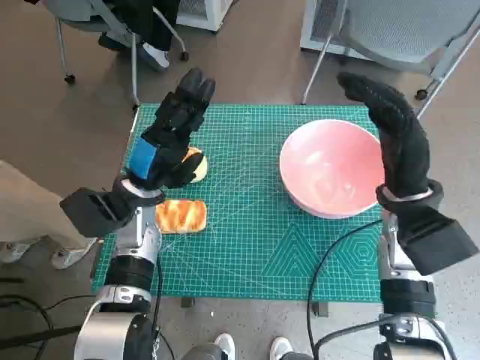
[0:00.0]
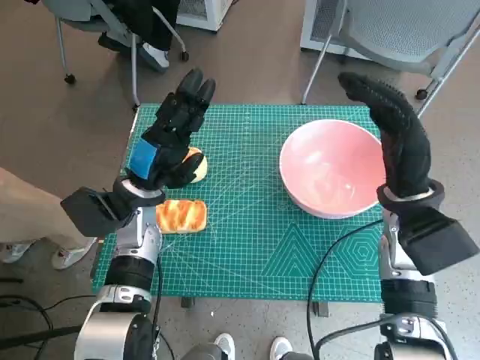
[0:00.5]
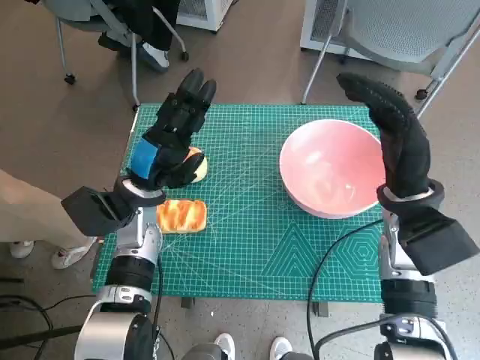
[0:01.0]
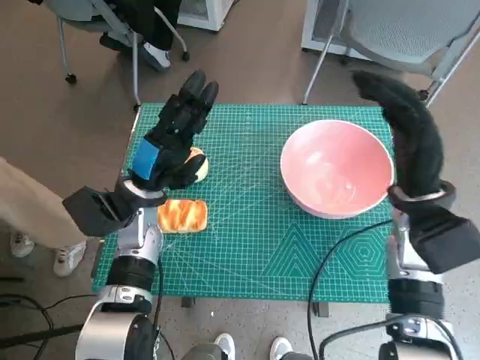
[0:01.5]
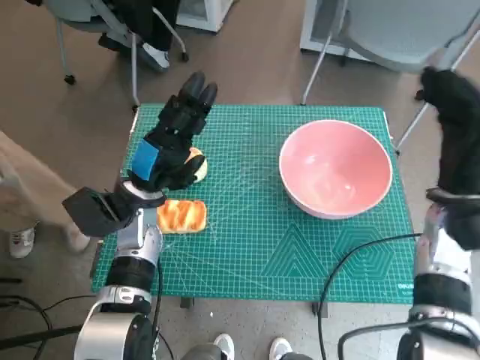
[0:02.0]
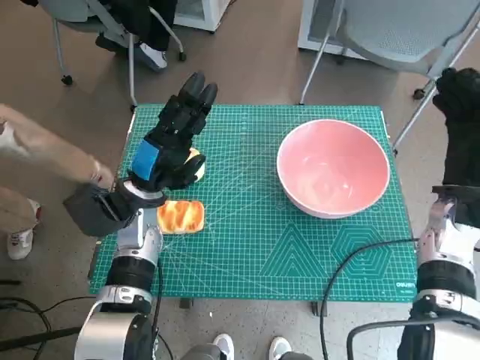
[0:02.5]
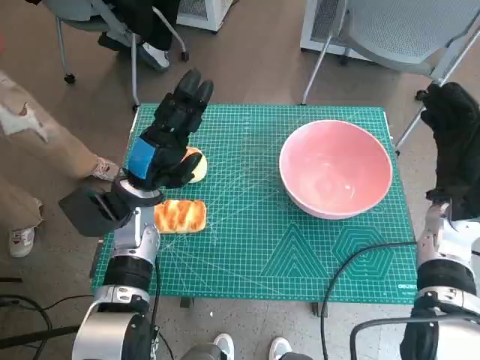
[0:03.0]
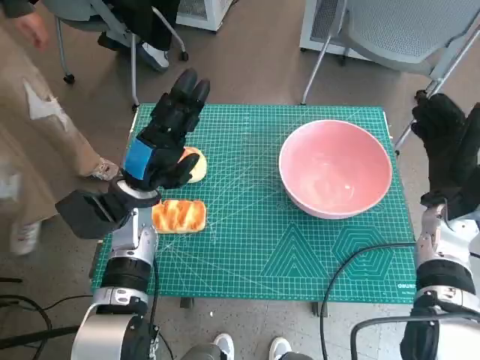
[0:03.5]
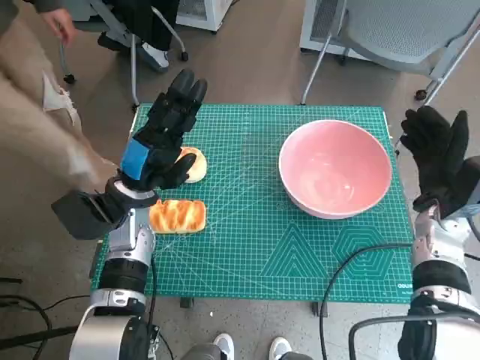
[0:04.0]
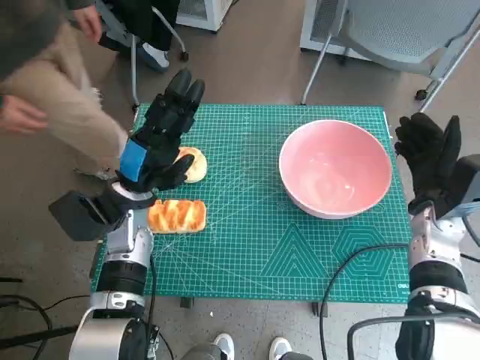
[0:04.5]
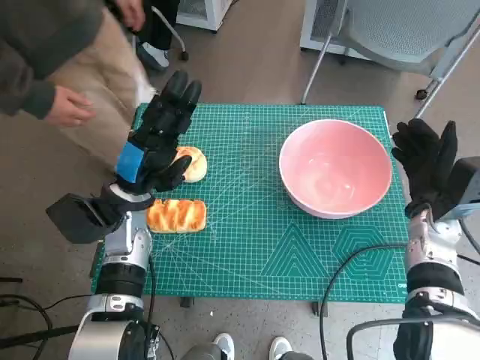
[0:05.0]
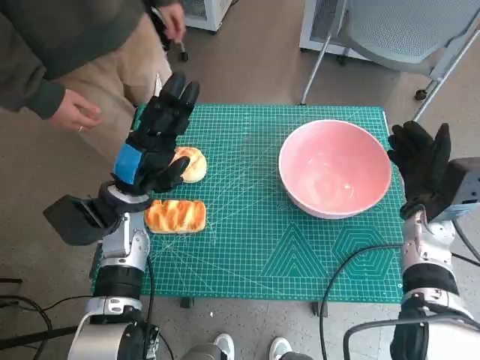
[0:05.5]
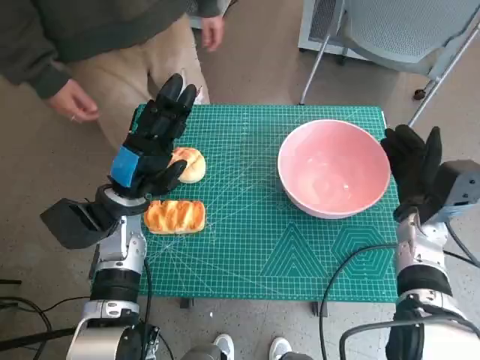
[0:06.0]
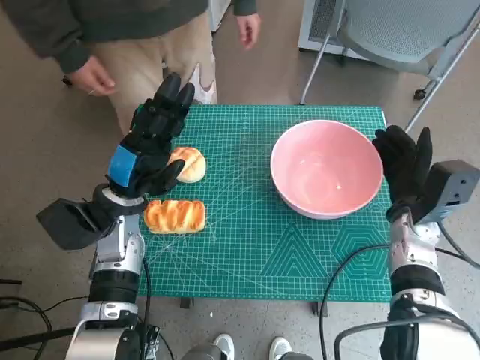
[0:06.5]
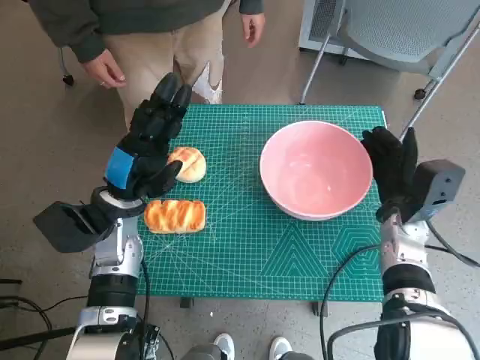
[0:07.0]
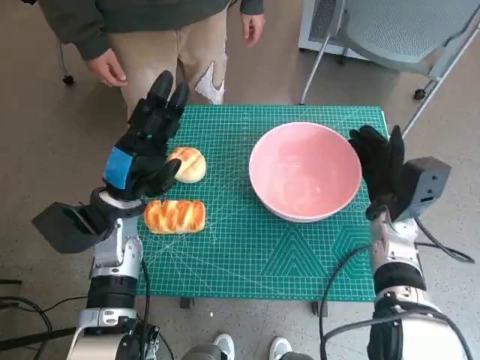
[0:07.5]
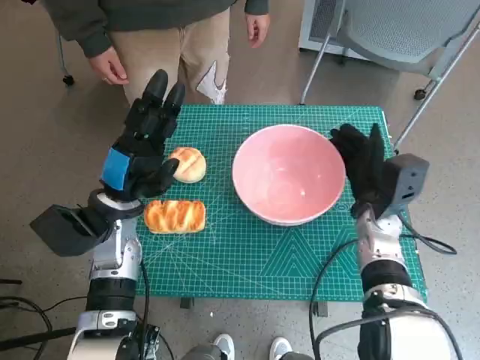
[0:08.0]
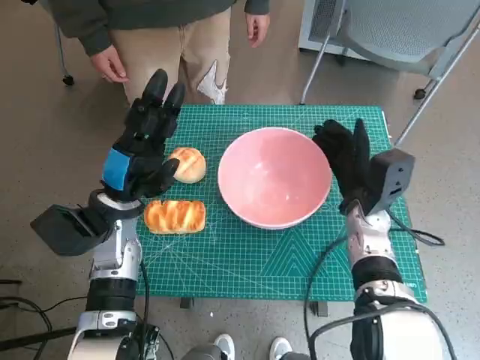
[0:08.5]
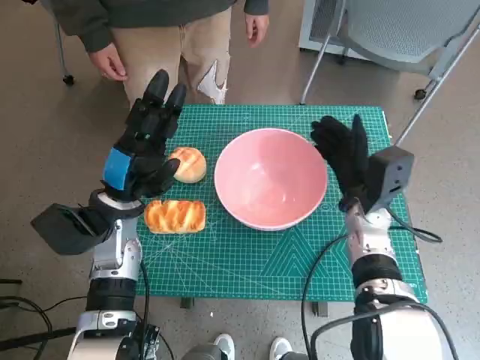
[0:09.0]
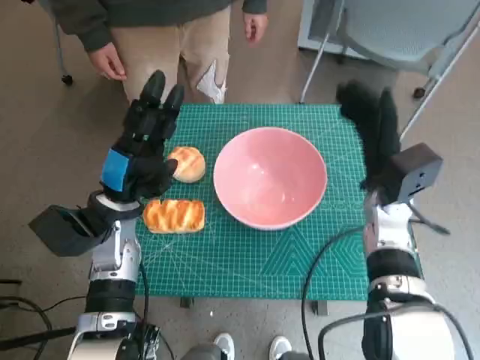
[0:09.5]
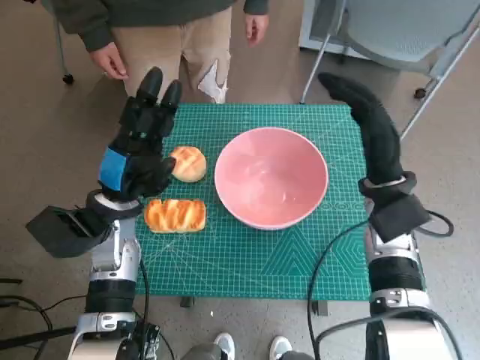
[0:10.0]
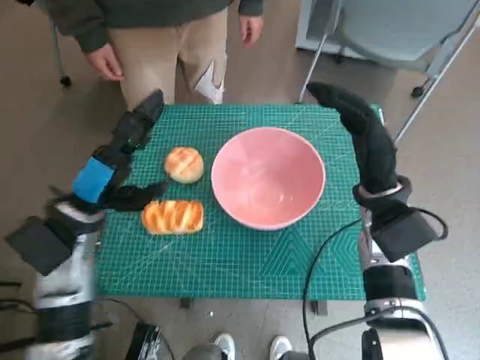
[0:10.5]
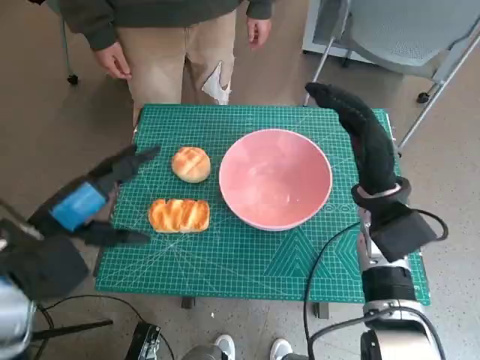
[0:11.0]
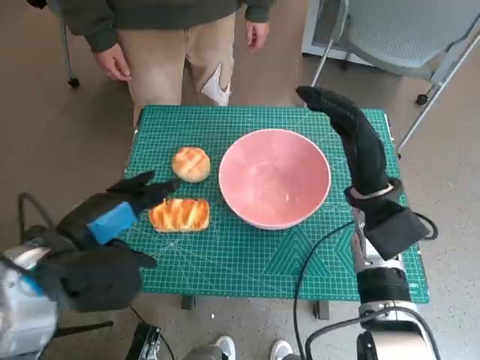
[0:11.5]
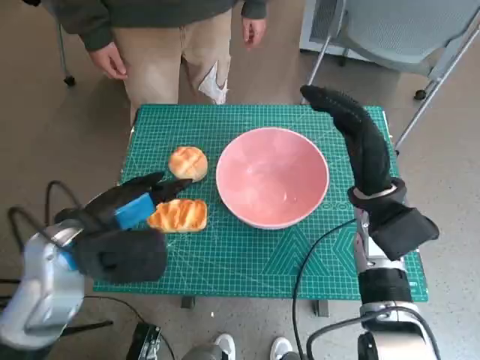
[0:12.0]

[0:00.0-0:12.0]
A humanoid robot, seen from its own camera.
Step, 0:00.0 to 0:09.0: Move the pink bowl to the center of table with right hand.
0:02.0 to 0:04.0: The right hand moves about 5 cm.
0:06.0 to 0:08.0: The right hand moves to the left, about 5 cm.
0:08.0 to 0:10.0: The right hand shifts approximately 5 cm upward.
0:10.0 to 0:12.0: The left hand goes some 10 cm backward and upward.

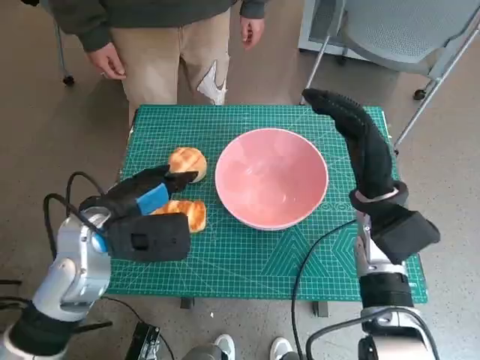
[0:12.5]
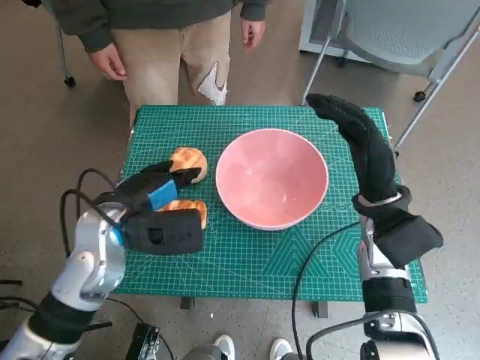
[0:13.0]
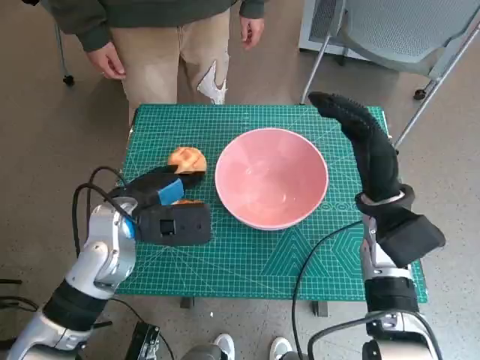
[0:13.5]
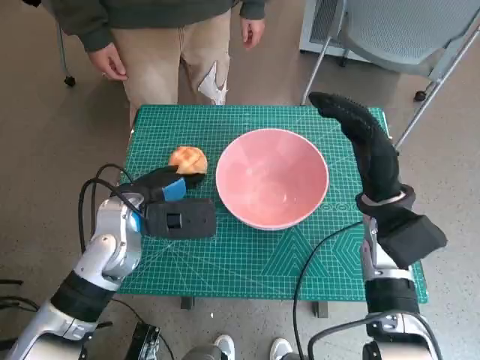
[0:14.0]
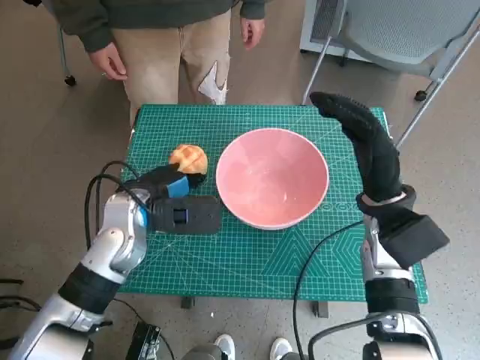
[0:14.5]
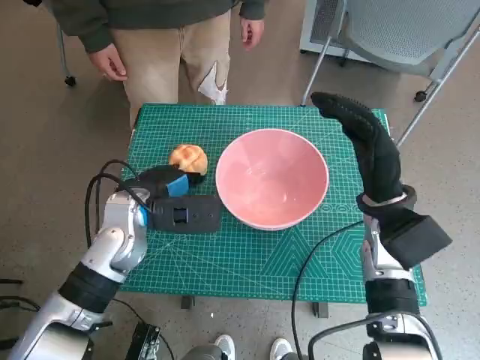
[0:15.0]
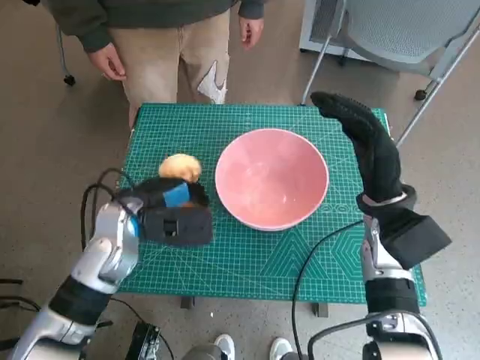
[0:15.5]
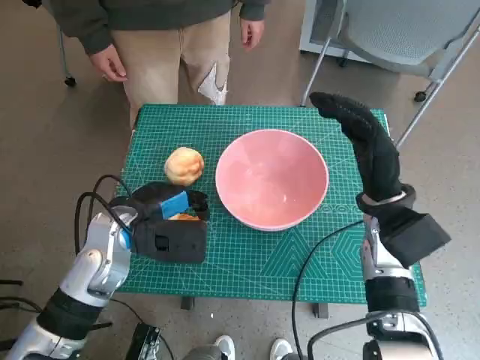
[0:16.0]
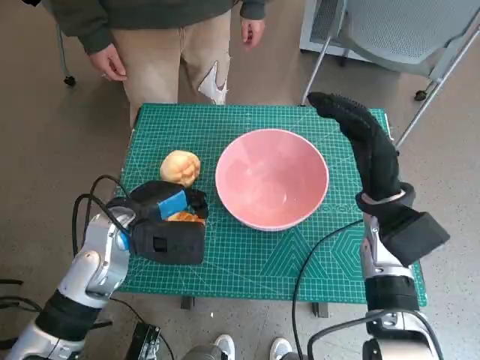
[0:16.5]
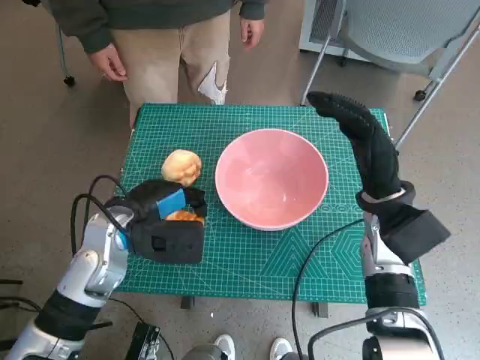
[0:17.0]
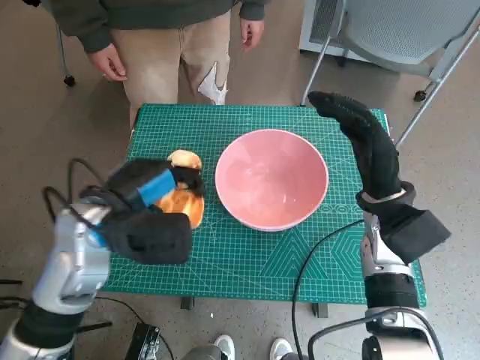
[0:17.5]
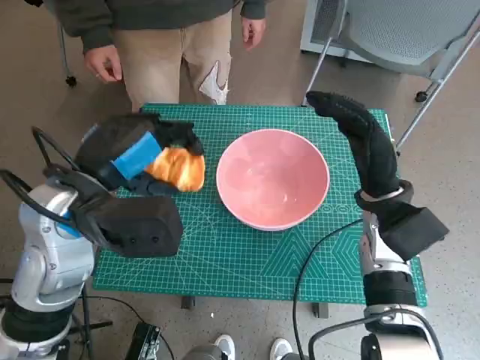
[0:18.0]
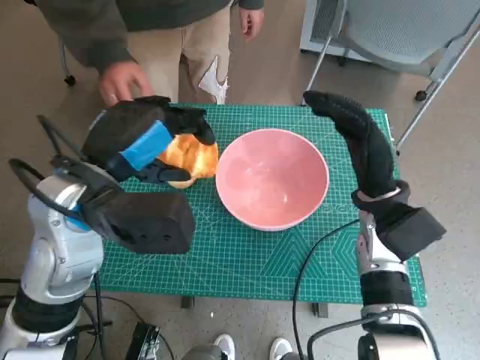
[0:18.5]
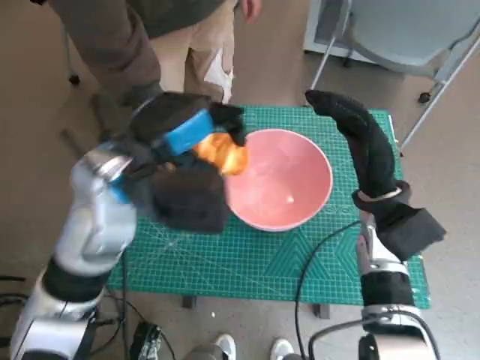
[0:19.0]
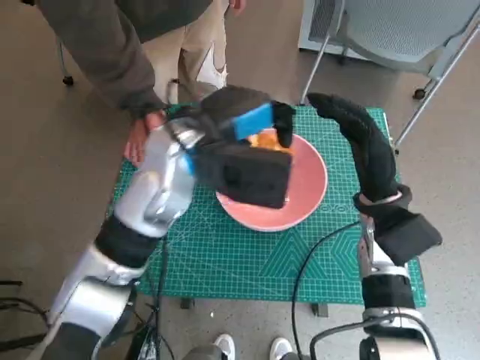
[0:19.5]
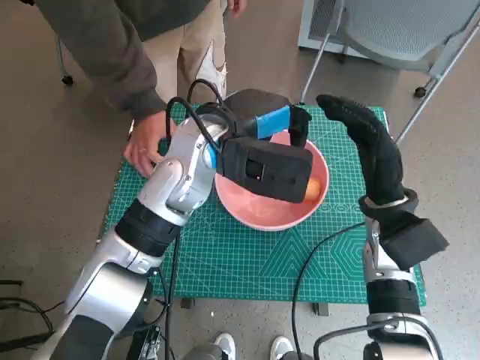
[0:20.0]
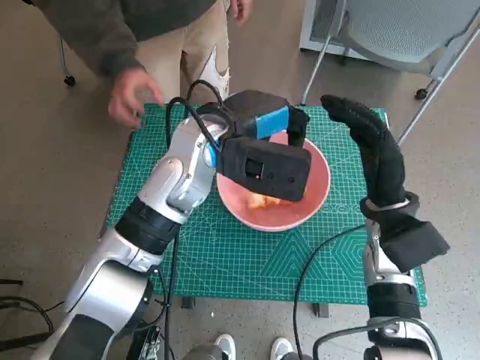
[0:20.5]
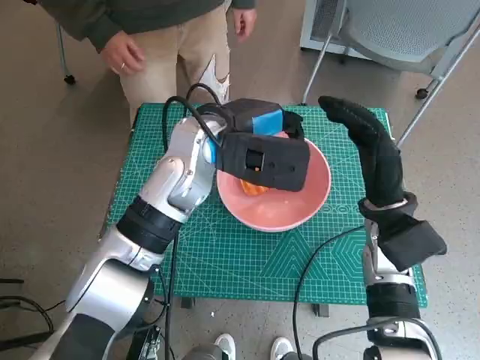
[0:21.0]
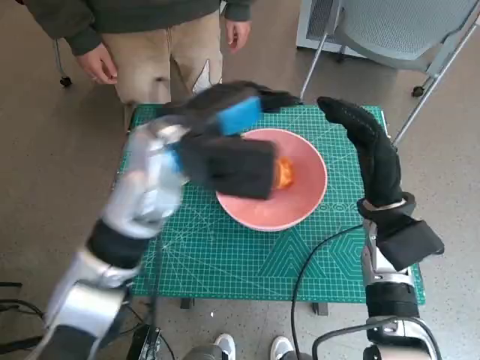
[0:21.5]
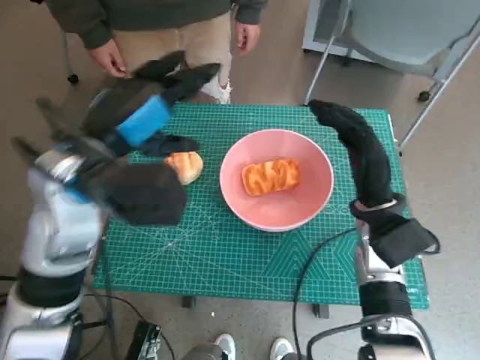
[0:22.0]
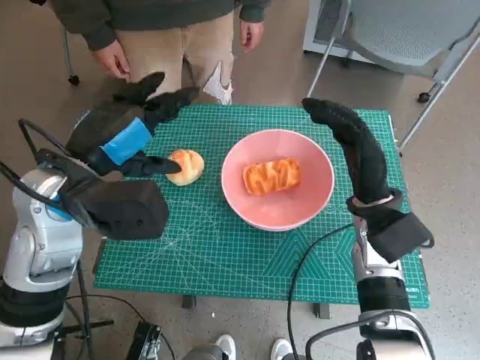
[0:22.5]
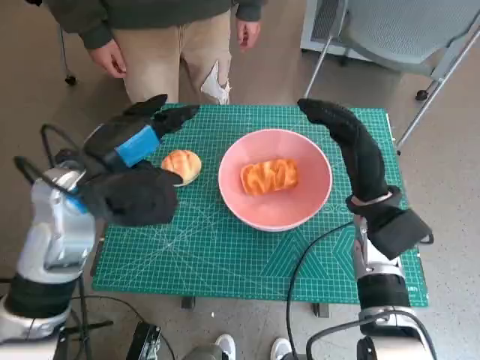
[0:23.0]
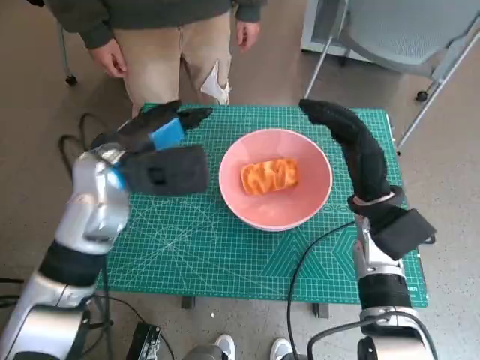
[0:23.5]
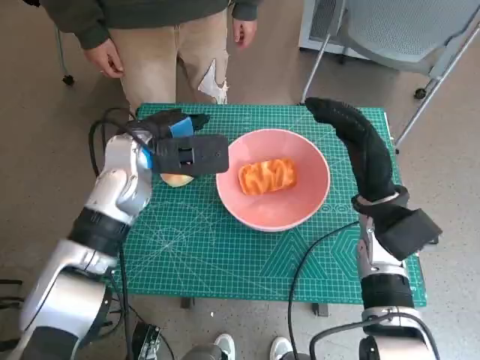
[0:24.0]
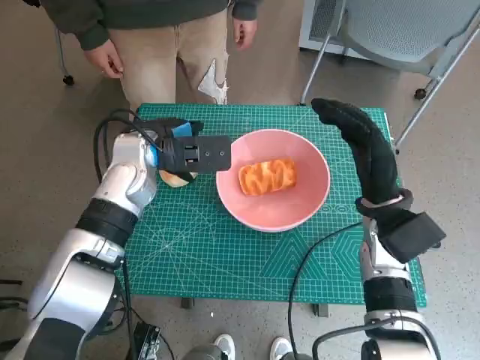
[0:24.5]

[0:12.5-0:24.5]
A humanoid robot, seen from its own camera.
Step, 0:12.5 to 0:15.0: Grasp the long bread with left hand.
Step, 0:15.5 to 0:20.0: Place the long bread in pink bowl with left hand.
0:12.5 to 0:14.5: The left hand shifts by approximately 5 cm.
0:14.5 to 0:16.5: There are only small adjustments of the hands.
0:16.5 to 0:18.5: The left hand travels upward by about 10 cm.
0:18.5 to 0:20.5: The left hand shifts some 15 cm to the right and forward.
0:20.5 to 0:22.5: The left hand heads to the left and backward, covering approximately 15 cm.
0:22.5 to 0:24.5: The left hand is displaced forward and downward by some 10 cm.

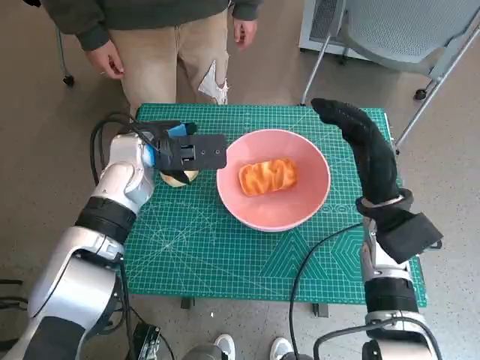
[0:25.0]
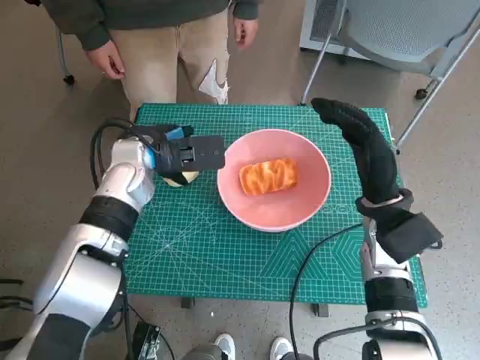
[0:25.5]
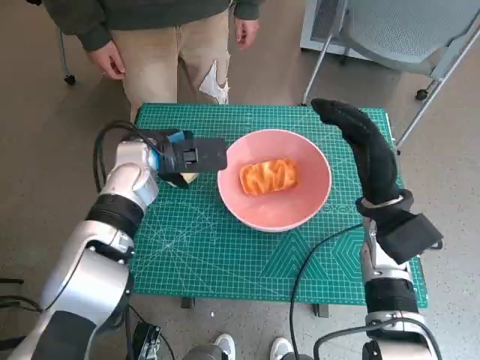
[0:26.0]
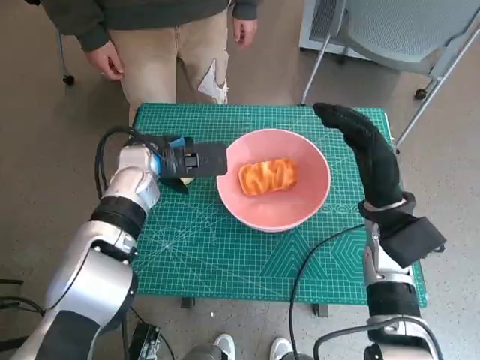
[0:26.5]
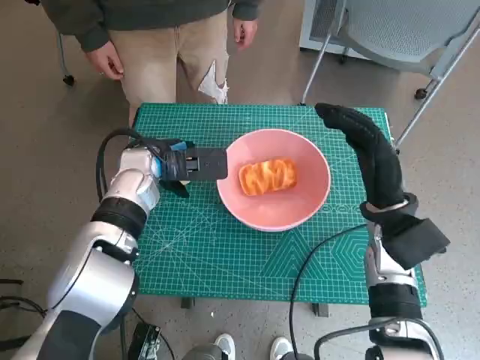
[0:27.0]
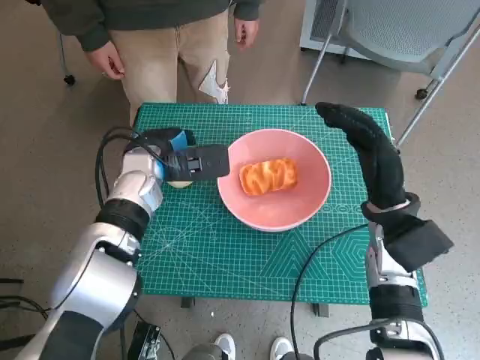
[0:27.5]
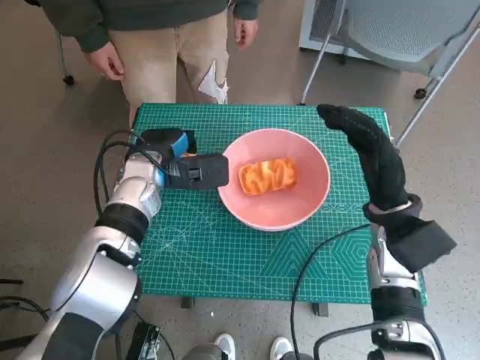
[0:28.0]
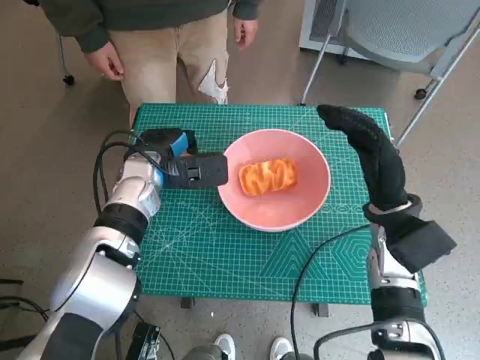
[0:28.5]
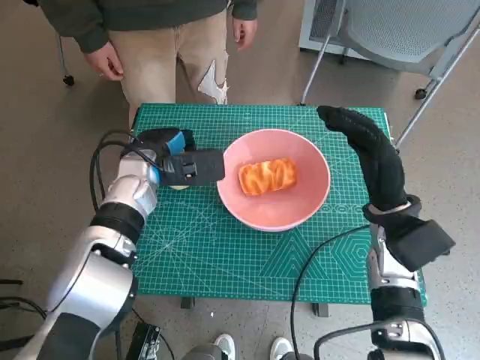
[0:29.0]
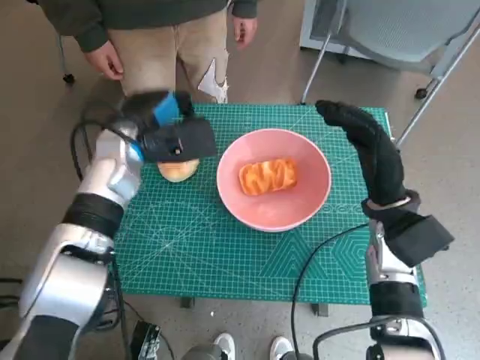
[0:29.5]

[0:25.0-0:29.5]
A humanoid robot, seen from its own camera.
0:25.0 to 0:27.0: The hands stay close to where they were, moving slightly.
